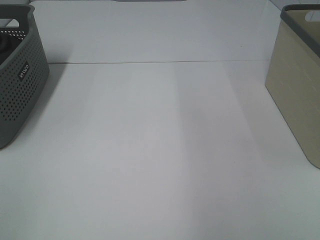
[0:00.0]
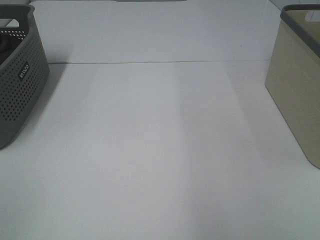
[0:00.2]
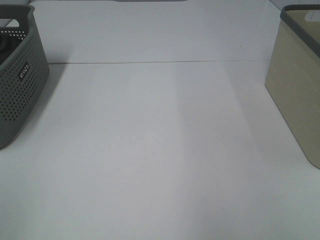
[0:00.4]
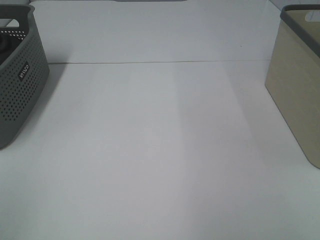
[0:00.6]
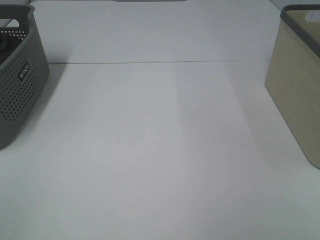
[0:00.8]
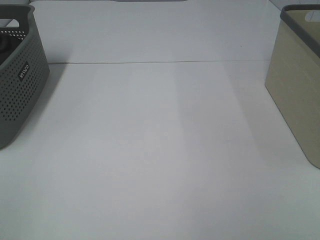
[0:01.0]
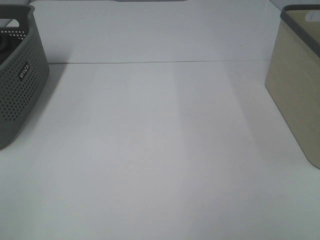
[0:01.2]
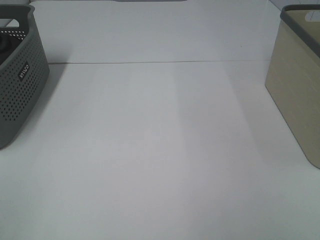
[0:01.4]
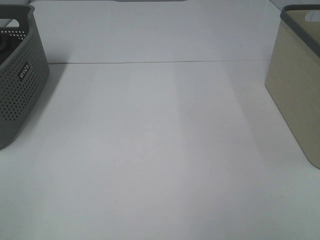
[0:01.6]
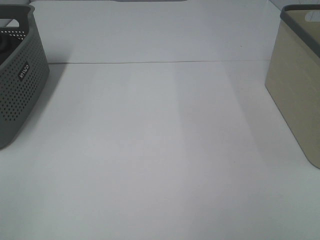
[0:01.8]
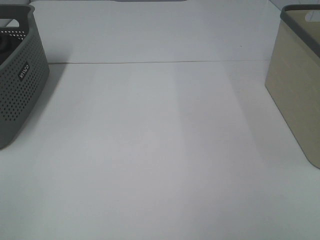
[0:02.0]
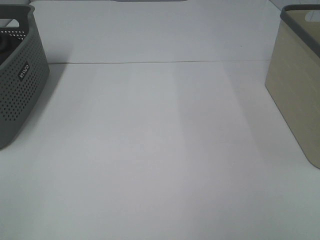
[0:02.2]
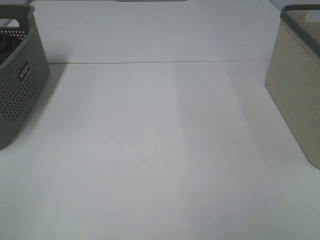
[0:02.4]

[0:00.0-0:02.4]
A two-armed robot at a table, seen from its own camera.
0:01.2 to 0:02.4: Neither gripper changes place.

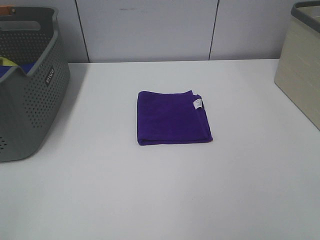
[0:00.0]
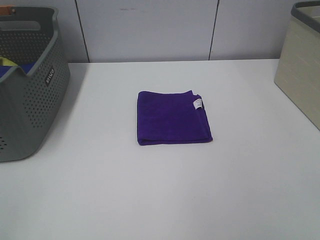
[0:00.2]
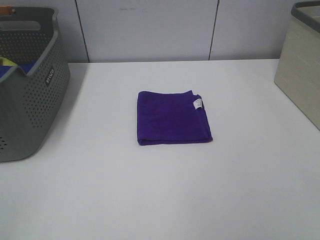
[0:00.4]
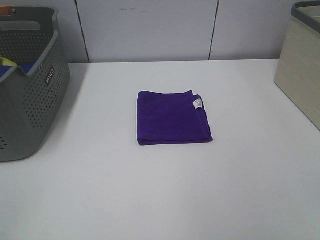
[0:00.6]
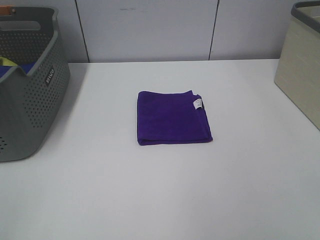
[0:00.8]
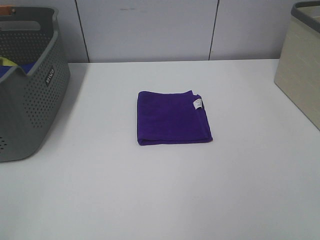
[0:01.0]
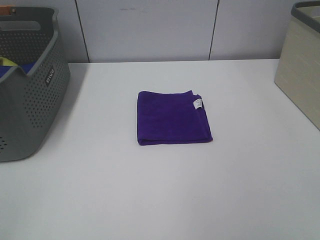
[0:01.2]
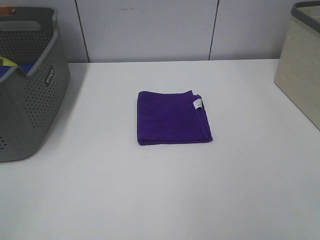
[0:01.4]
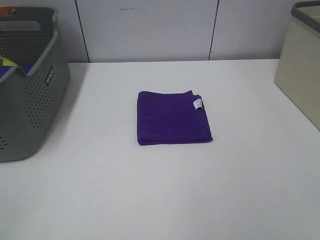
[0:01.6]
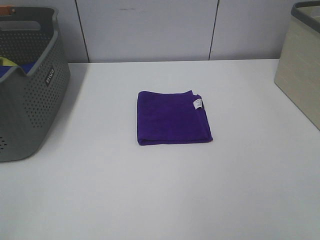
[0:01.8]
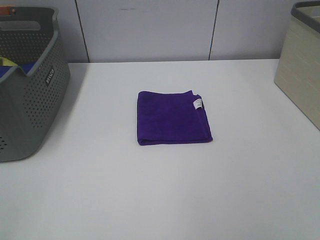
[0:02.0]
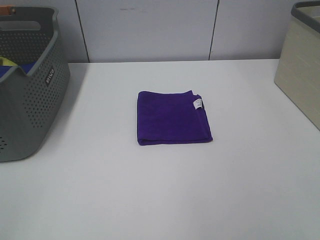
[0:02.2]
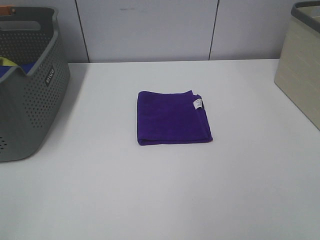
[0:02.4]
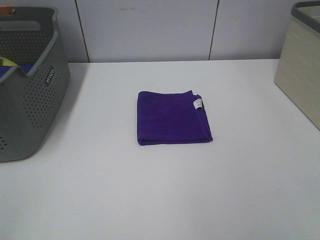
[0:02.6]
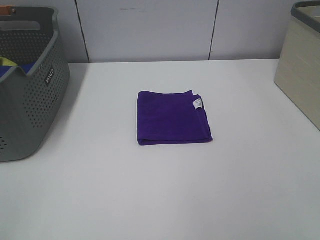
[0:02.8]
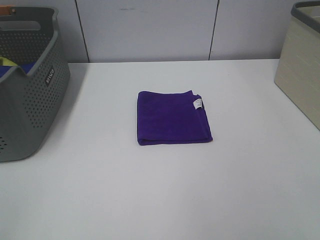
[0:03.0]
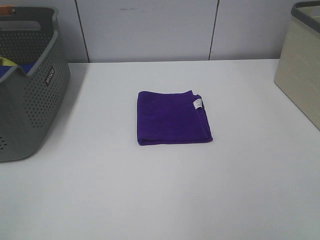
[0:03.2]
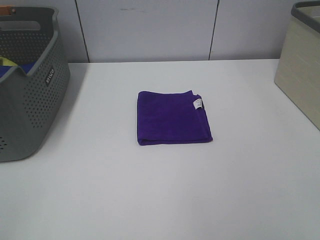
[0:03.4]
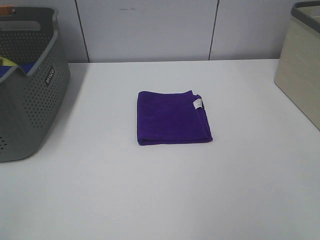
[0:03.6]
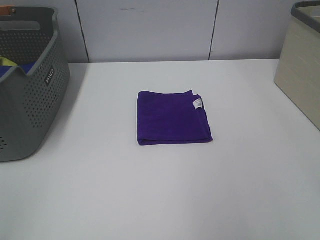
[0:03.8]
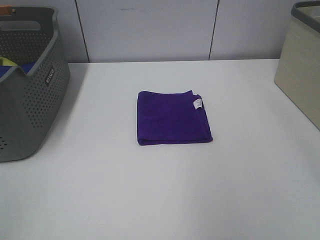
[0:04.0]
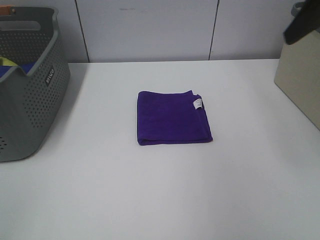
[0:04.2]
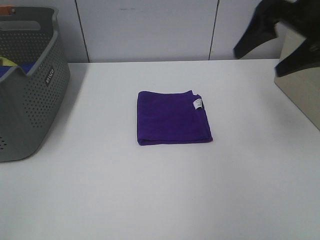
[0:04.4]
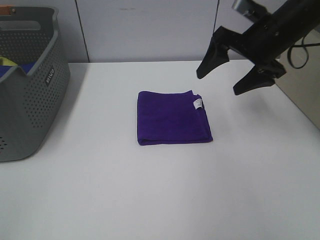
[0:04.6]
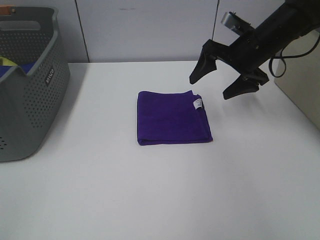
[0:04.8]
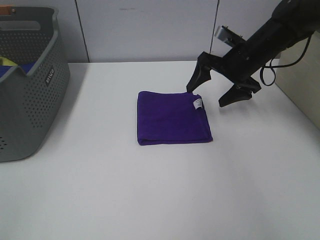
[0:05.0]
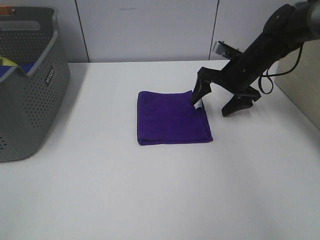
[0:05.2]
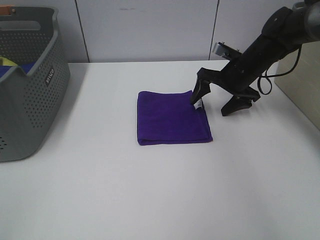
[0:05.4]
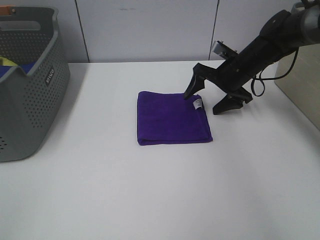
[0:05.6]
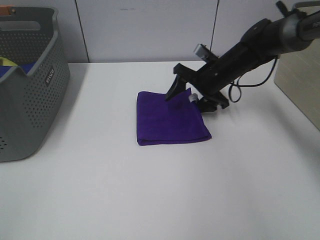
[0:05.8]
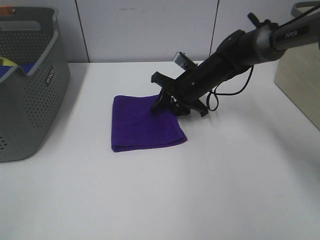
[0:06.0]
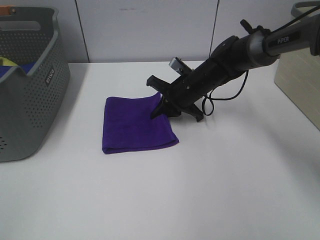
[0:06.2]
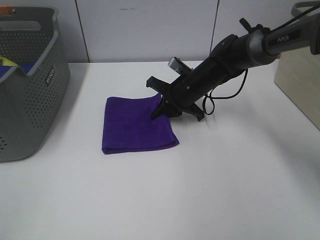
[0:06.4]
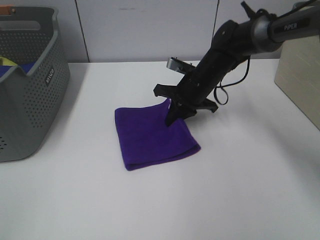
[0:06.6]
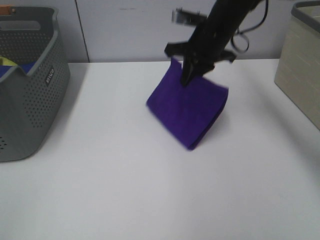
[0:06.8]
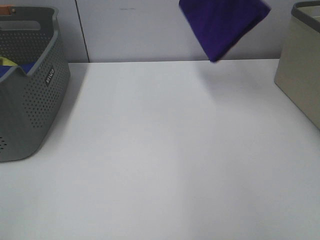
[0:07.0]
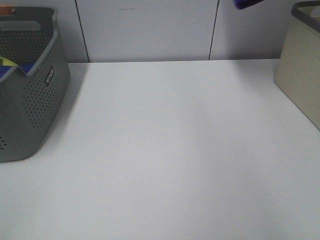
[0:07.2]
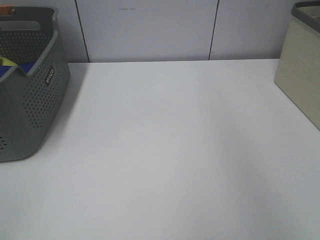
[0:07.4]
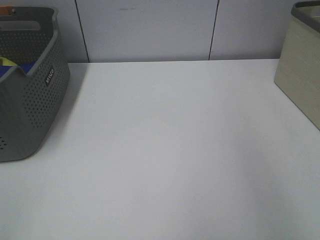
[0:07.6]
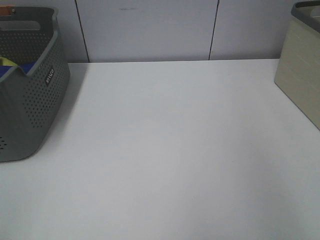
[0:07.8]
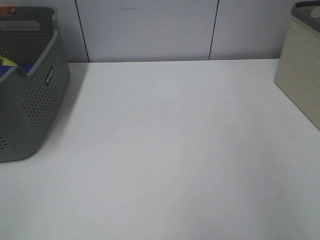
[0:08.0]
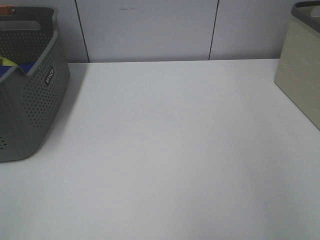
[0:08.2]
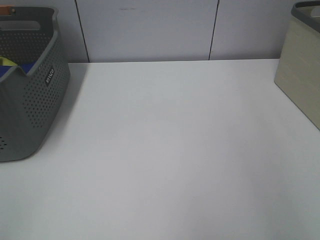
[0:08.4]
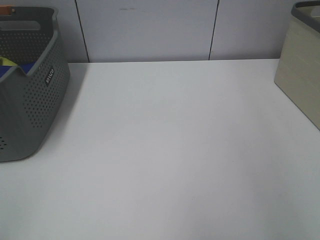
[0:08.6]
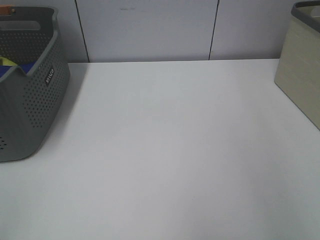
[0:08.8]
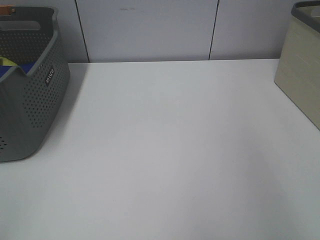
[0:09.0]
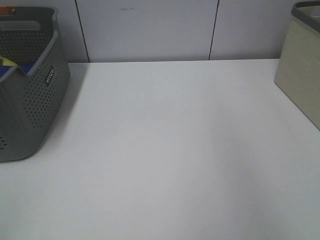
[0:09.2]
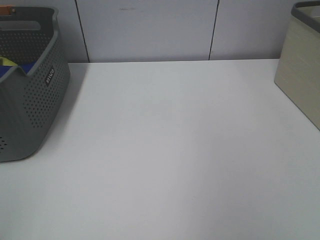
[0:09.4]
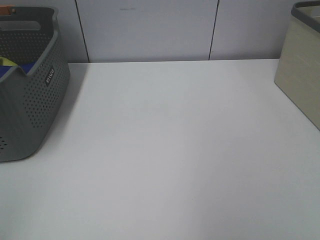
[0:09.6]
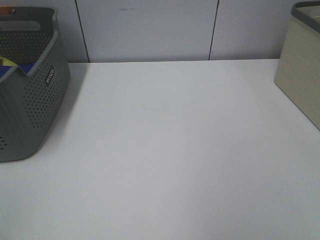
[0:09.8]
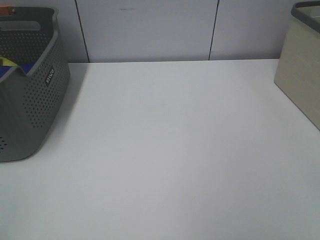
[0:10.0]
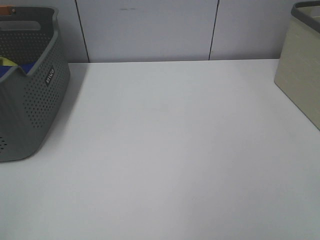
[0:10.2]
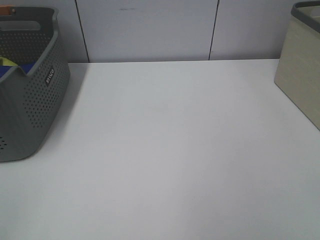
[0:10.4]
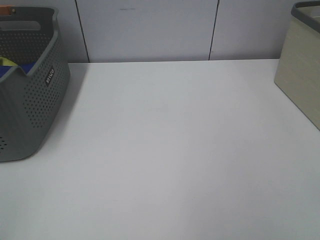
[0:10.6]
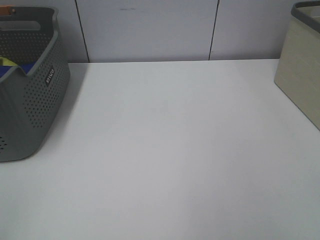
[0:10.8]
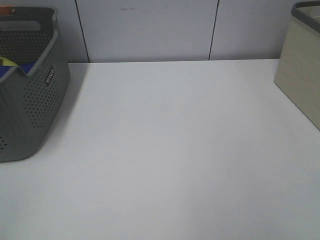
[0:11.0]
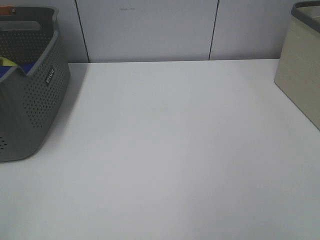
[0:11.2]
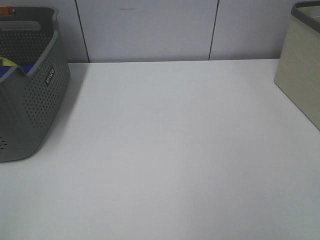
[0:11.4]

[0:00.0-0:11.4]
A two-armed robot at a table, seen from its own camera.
Step, 0:00.0 to 0:06.2: Right hand: grab the folded purple towel.
Step, 0:06.4 to 0:08.8: Right hand: place the purple towel in right basket.
0:00.0 to 0:02.8: Both grippers stay put.
0:02.8 to 0:04.2: The right gripper shifts about 25 cm forward.
0:04.2 to 0:05.6: The right gripper goes about 30 cm downward and forward.
0:05.6 to 0:07.2: The right gripper travels upward by approximately 35 cm, and closes up.
0:07.2 to 0:08.6: The right gripper heads to the right and downward, covering roughly 20 cm, and opens up.

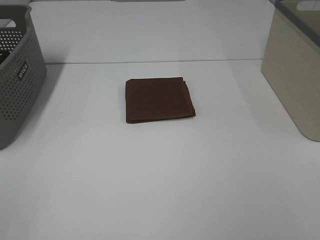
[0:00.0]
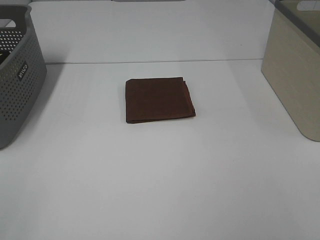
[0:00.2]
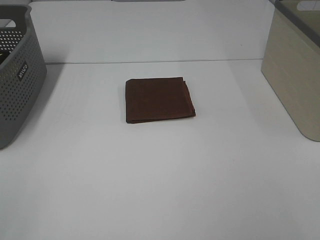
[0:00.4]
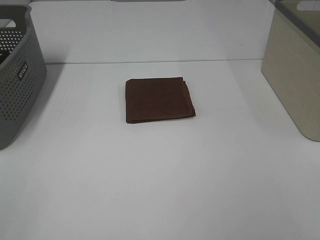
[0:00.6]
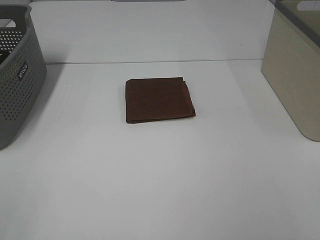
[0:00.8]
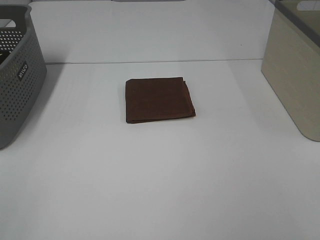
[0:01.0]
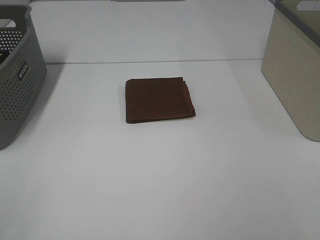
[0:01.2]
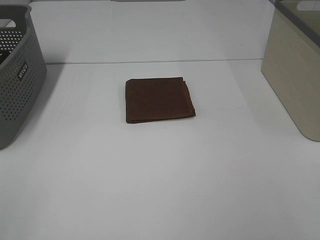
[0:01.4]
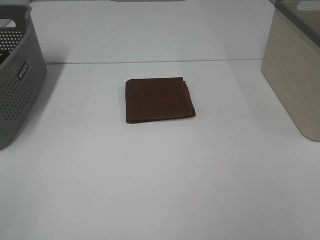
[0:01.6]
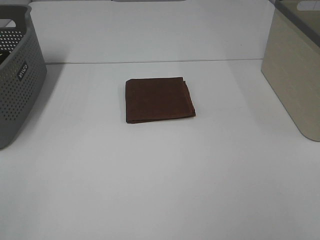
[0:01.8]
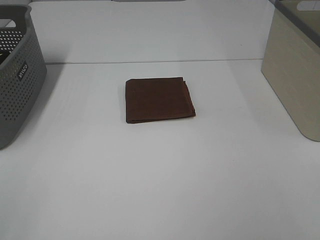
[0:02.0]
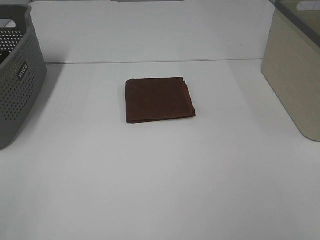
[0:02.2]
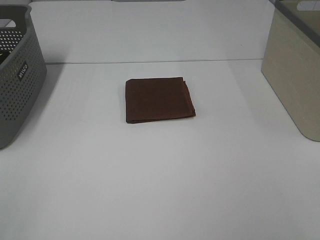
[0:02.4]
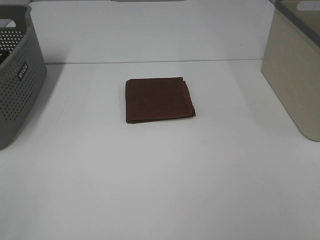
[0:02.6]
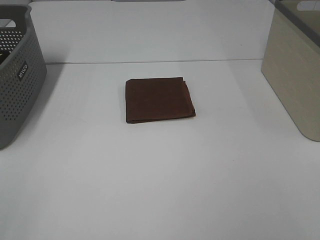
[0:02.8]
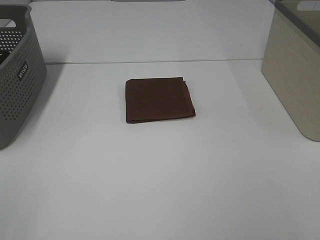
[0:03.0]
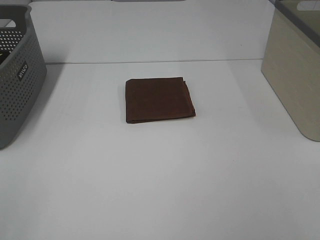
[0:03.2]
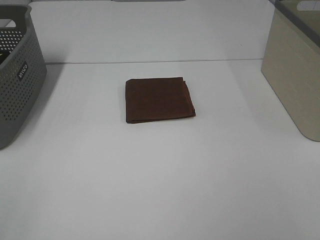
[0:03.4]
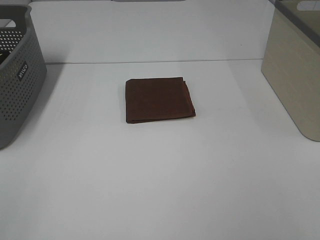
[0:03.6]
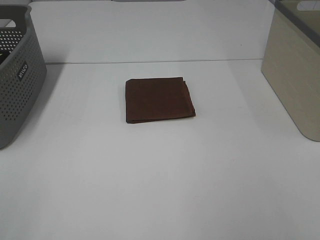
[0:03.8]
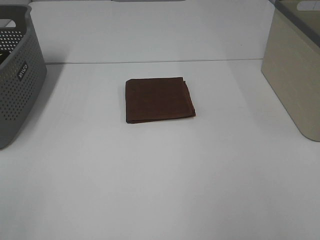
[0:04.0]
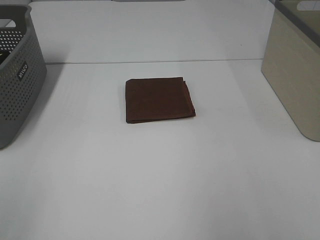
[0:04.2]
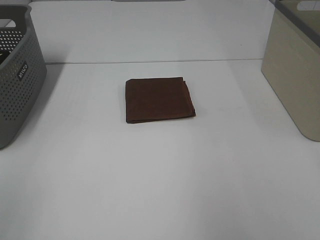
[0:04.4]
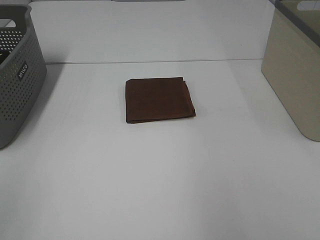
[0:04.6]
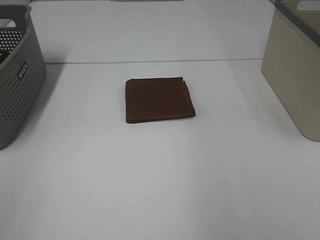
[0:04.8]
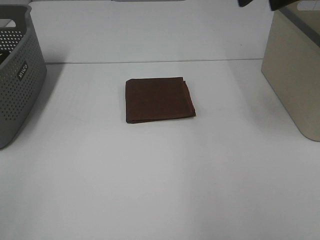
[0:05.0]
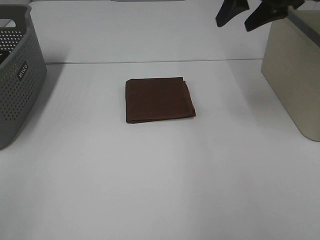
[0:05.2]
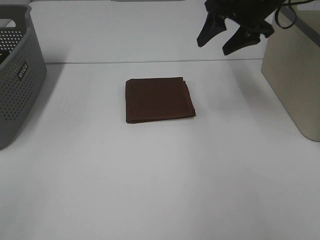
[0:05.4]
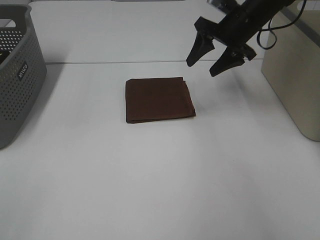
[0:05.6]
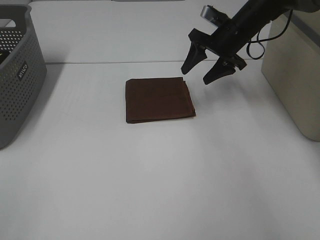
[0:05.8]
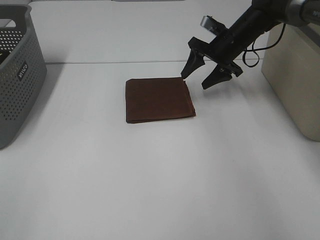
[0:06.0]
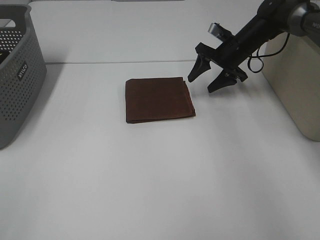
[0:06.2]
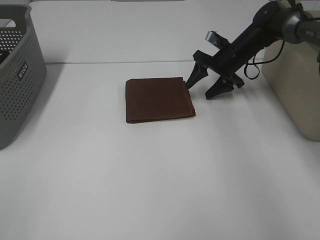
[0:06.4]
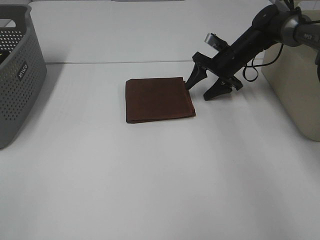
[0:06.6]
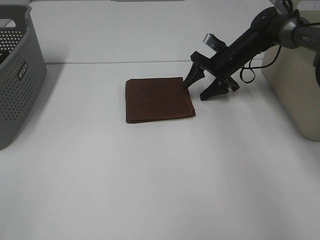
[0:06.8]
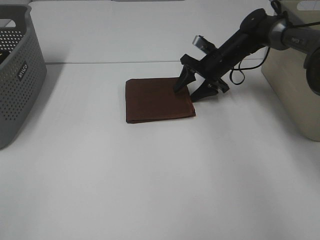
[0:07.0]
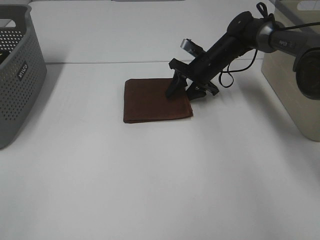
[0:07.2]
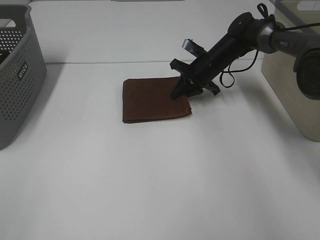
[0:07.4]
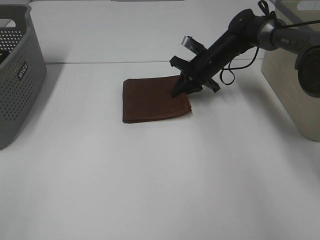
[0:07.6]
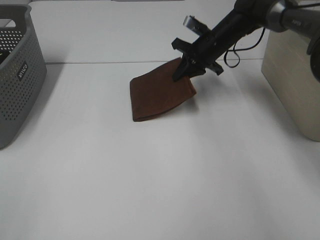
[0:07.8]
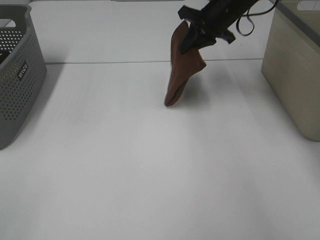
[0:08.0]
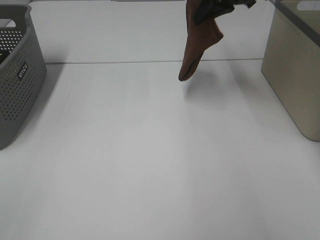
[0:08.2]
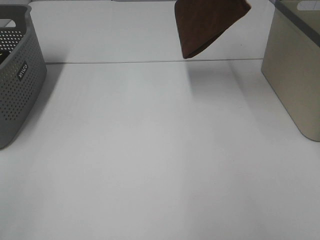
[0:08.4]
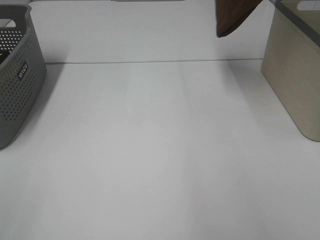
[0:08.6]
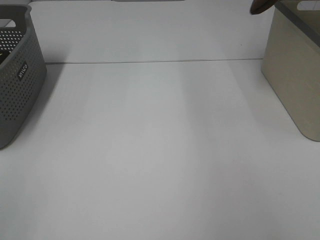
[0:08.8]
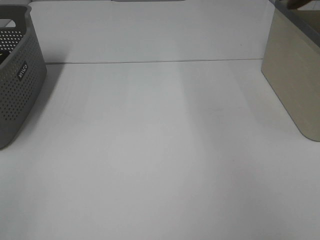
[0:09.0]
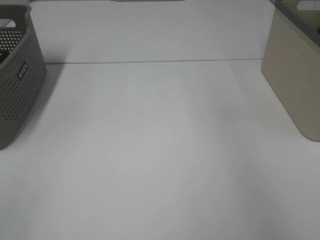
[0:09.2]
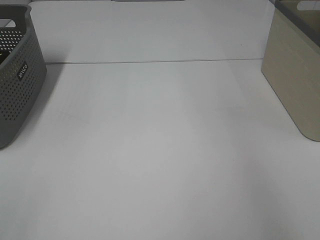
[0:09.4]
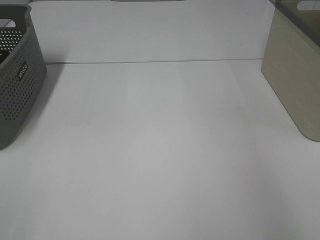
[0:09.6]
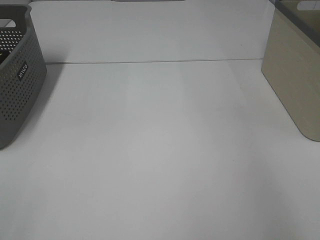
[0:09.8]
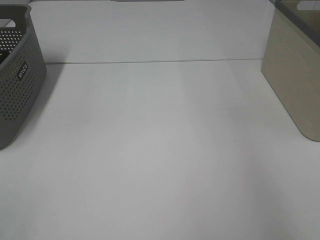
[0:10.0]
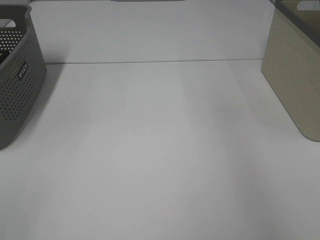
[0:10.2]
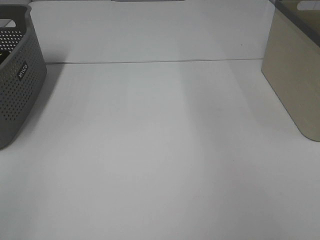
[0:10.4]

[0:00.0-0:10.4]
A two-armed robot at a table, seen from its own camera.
Step, 0:00.0 to 0:07.4: Right hand: grab the folded brown towel.
Step, 0:07.6 to 0:09.8: Right hand: place the brown towel in right basket.
0:00.0 to 0:03.0: Neither gripper changes place.
0:04.4 to 0:06.0: The right gripper shifts about 40 cm forward and downward.
0:06.0 to 0:07.4: The right gripper travels downward by approximately 5 cm, and closes.
0:07.4 to 0:09.0: The right gripper shifts approximately 40 cm upward and to the right.
